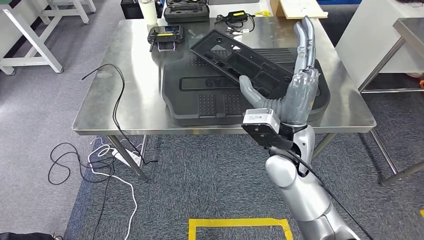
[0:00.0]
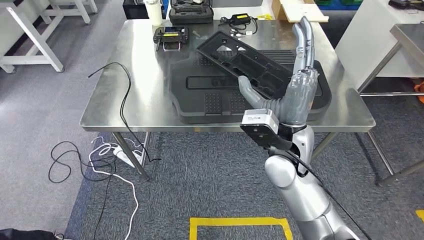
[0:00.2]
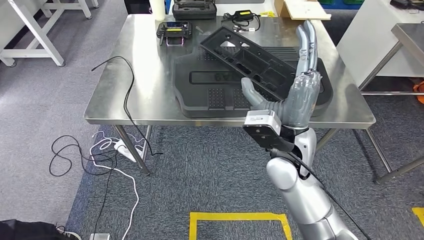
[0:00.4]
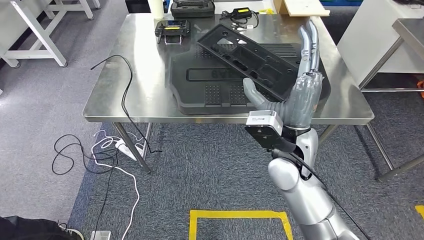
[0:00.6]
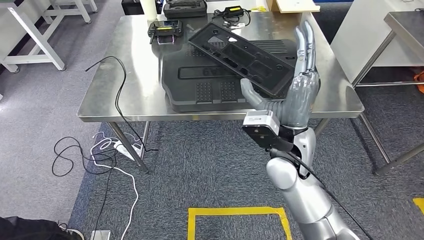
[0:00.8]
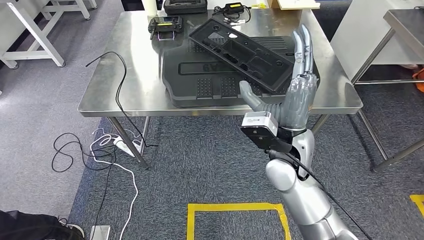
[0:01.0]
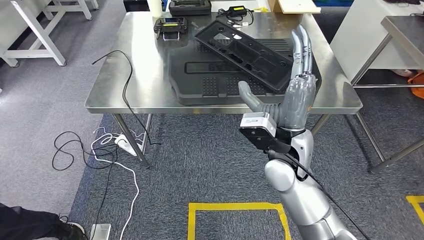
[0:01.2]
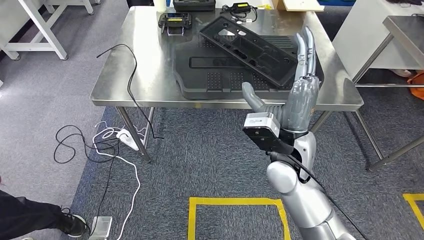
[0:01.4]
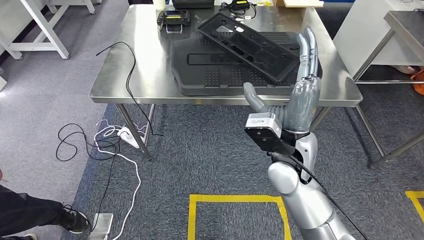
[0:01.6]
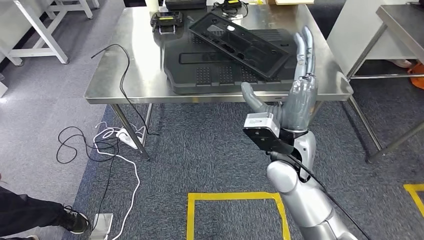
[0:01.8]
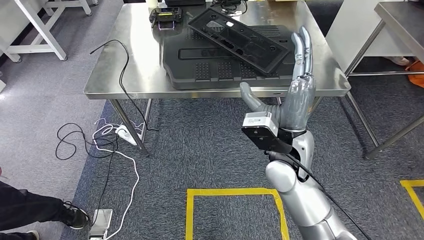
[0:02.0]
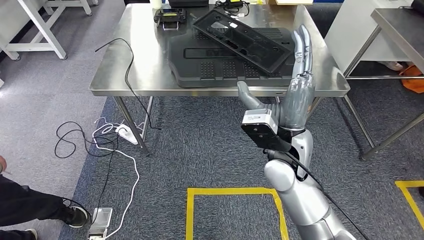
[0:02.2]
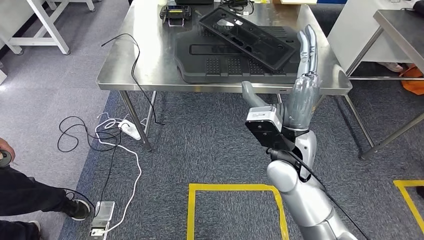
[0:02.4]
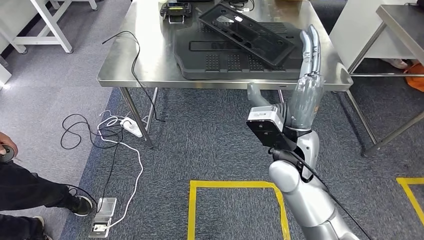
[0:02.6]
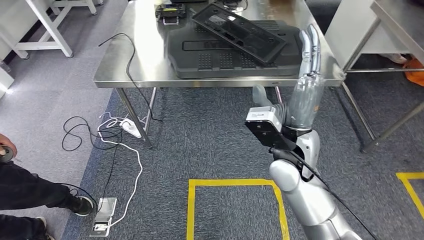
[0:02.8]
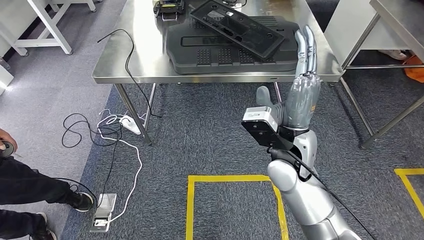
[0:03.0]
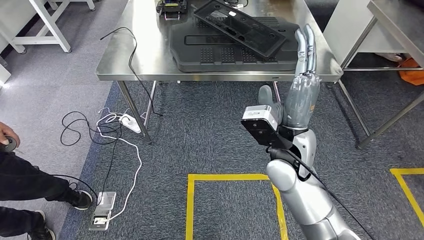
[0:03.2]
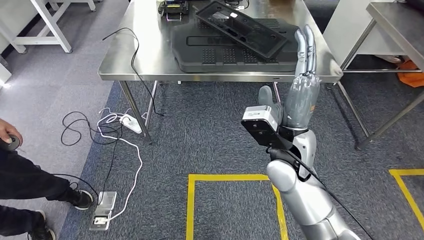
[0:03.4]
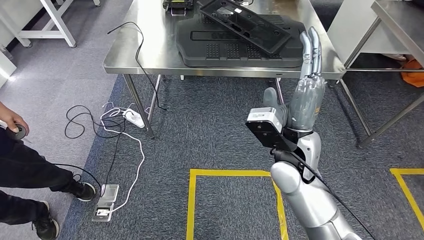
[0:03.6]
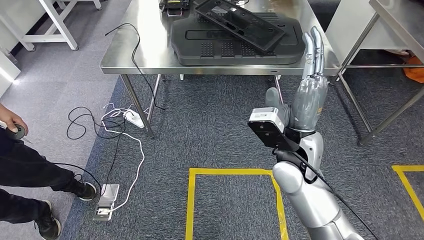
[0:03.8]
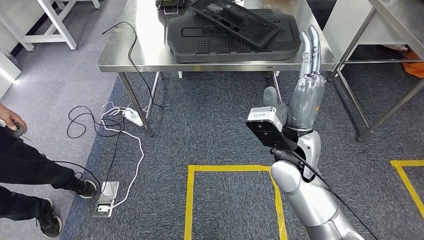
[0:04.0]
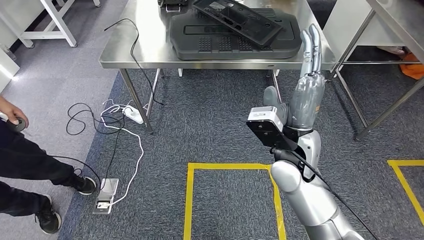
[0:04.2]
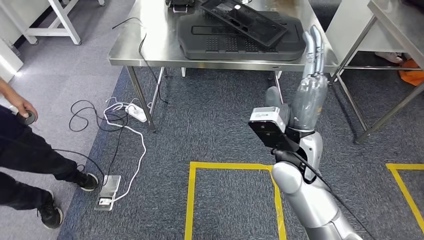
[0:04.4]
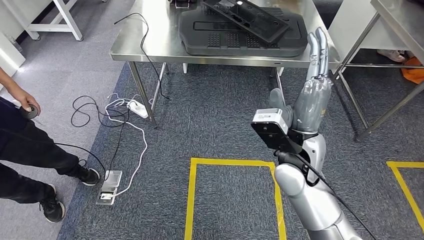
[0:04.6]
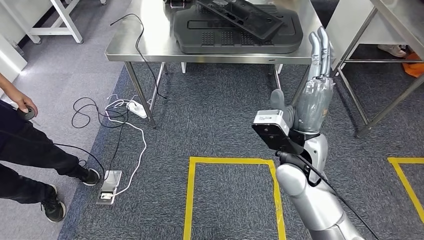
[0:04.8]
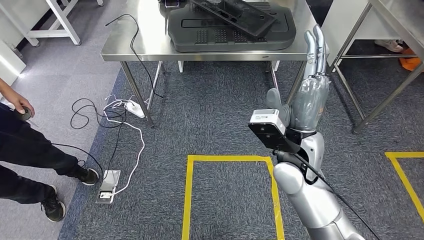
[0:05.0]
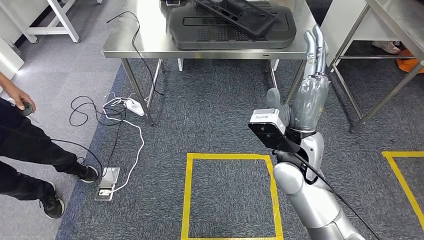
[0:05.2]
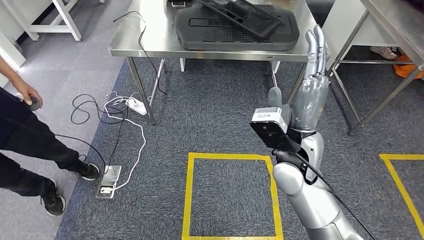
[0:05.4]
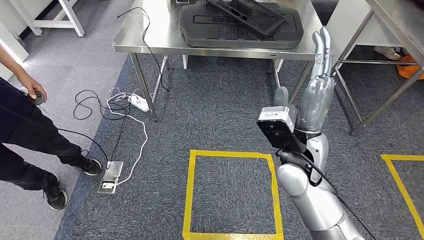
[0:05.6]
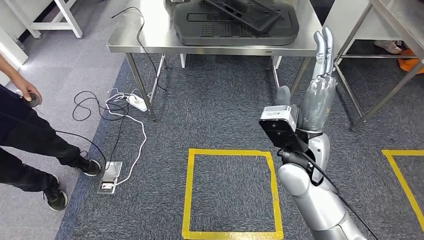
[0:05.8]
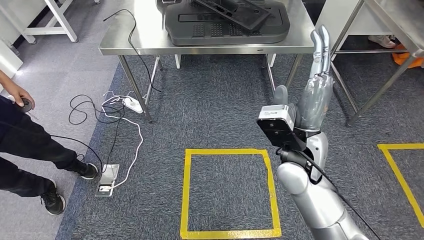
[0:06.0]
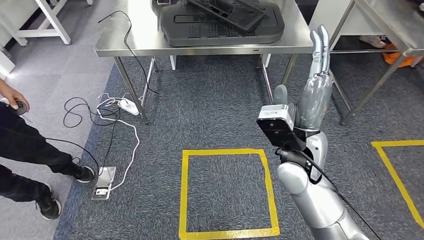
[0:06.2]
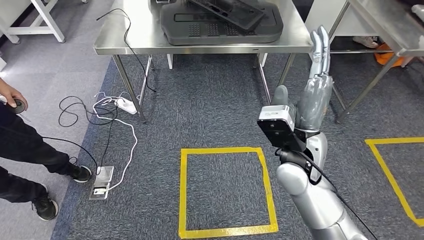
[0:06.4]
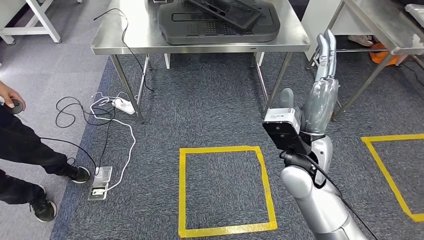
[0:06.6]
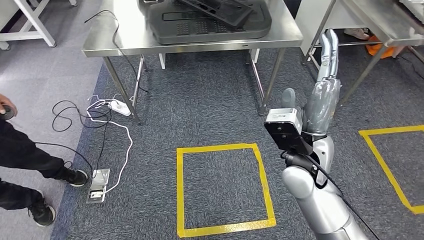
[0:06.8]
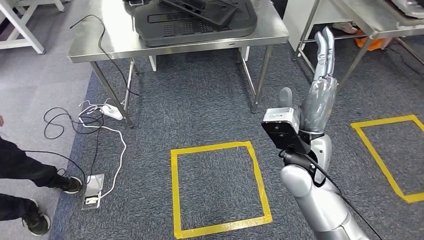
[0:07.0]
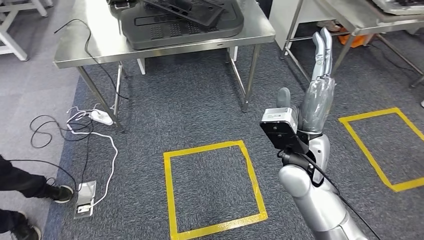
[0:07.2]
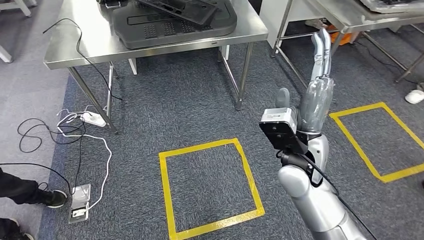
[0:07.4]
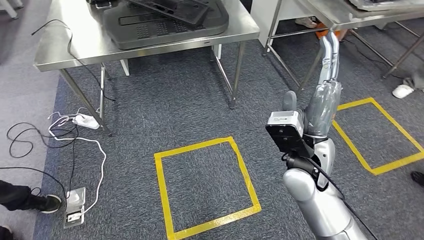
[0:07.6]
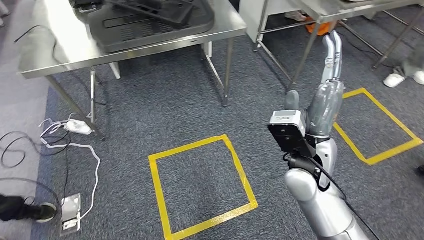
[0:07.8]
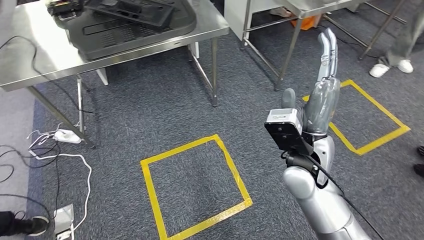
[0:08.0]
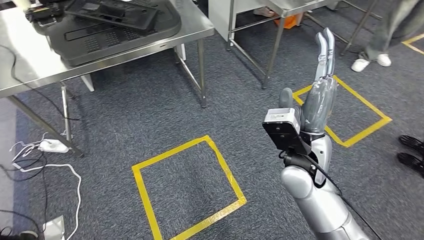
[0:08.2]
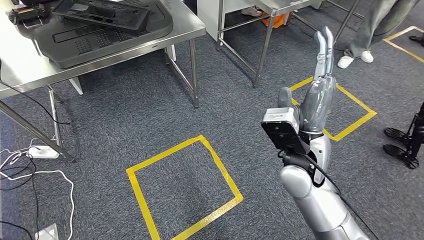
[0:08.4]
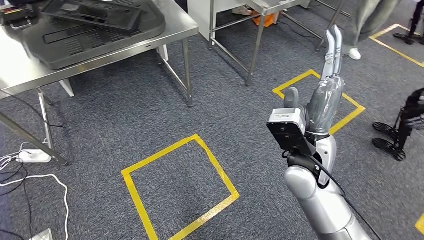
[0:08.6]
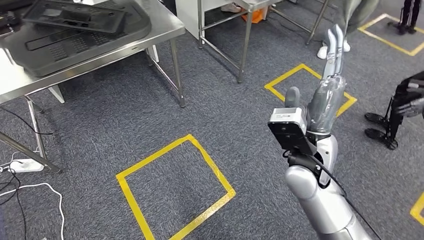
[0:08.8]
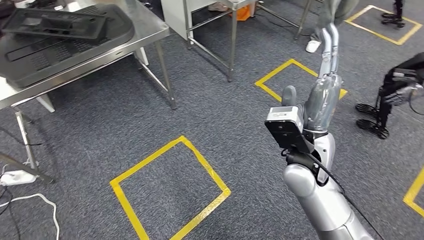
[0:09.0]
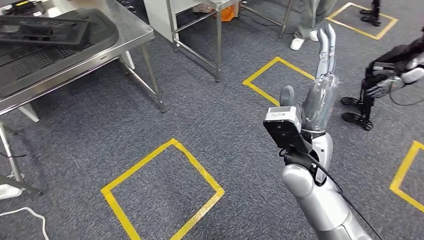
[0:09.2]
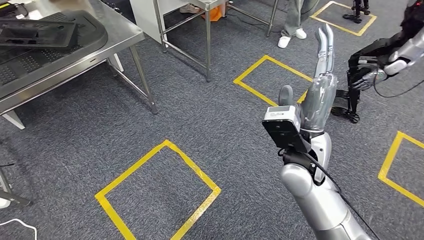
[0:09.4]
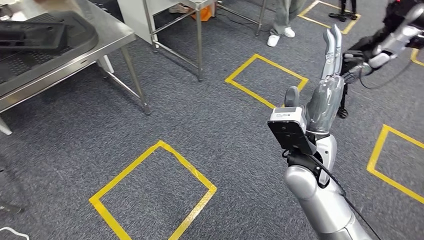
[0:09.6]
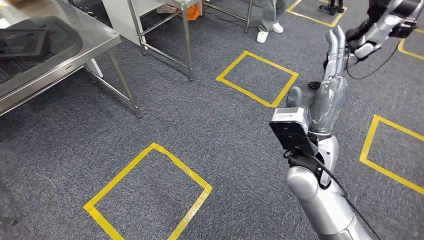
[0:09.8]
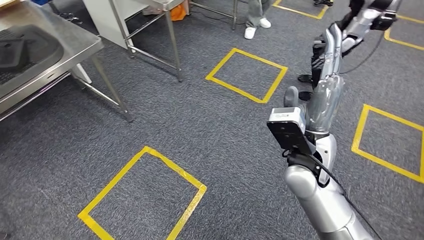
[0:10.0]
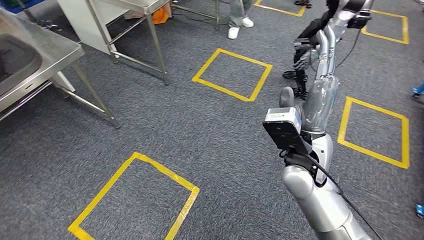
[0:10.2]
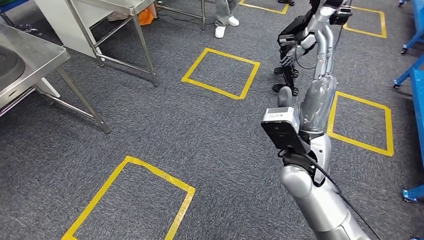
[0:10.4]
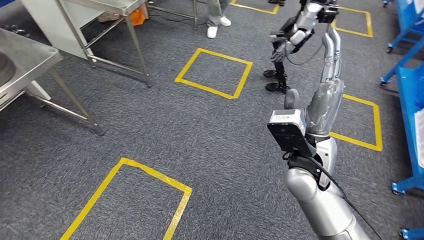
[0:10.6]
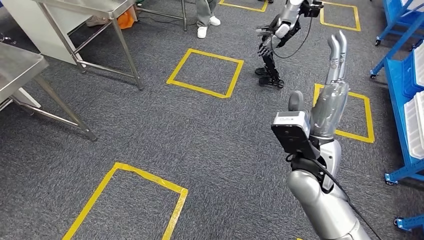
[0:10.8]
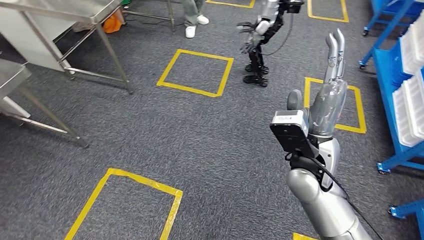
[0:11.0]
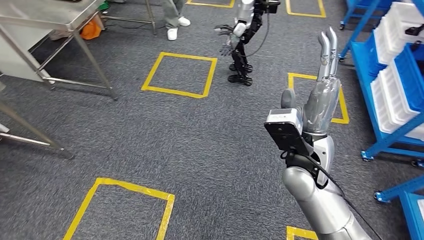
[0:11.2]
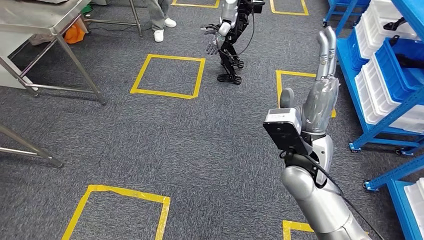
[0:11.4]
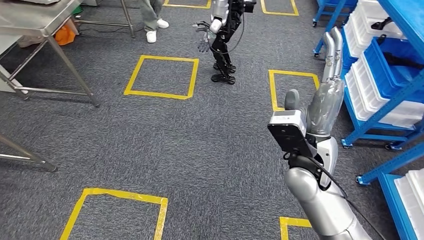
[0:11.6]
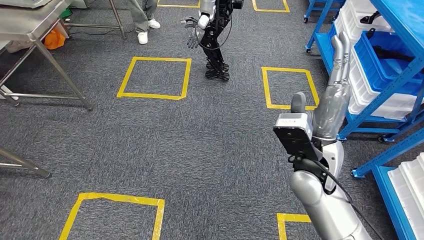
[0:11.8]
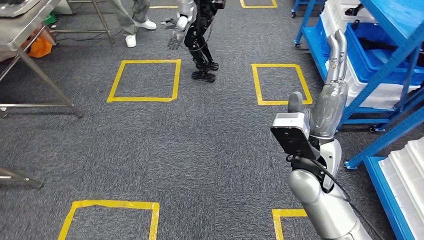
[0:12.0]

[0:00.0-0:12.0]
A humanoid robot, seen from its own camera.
Step, 0:00.0 to 0:03.2: Insert the large material into the corresponding slot on the workbench.

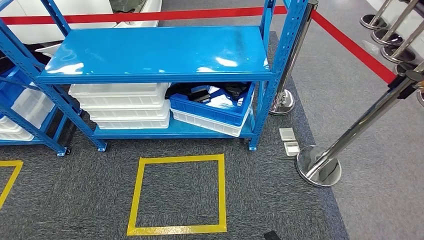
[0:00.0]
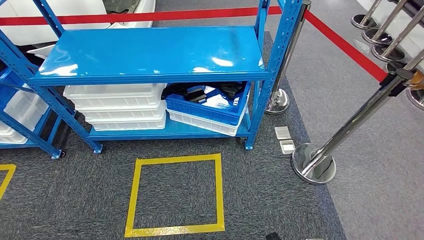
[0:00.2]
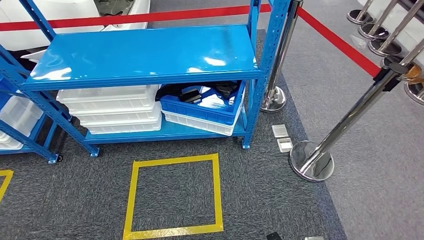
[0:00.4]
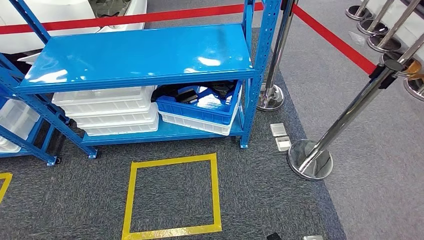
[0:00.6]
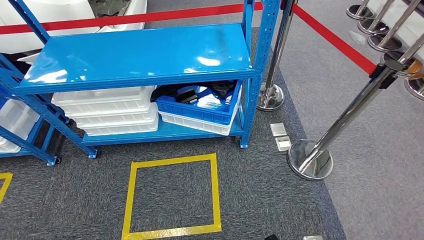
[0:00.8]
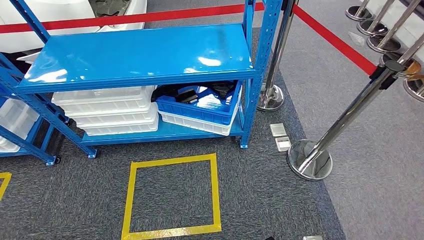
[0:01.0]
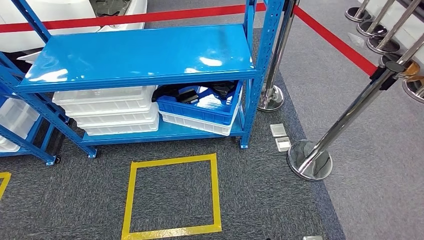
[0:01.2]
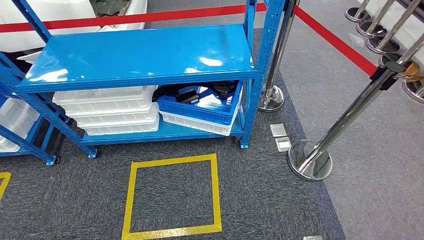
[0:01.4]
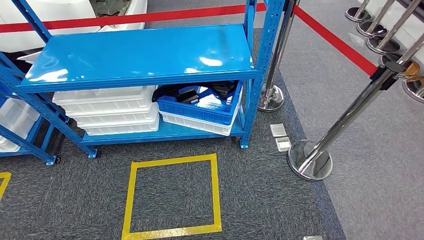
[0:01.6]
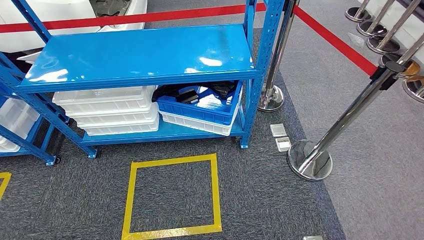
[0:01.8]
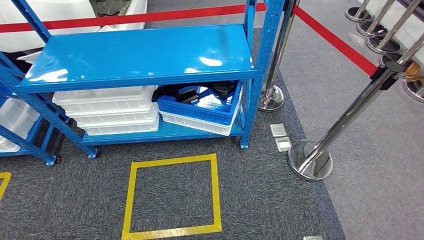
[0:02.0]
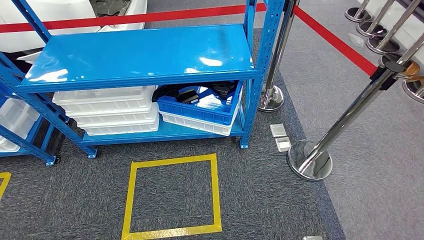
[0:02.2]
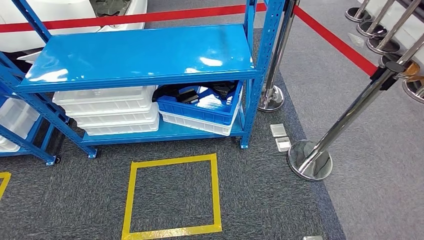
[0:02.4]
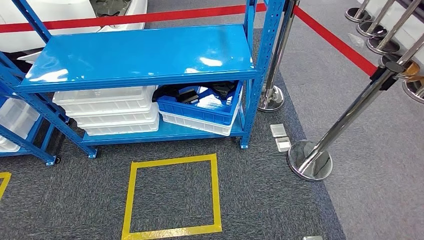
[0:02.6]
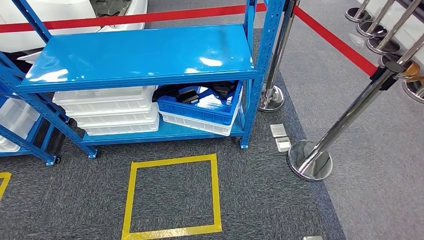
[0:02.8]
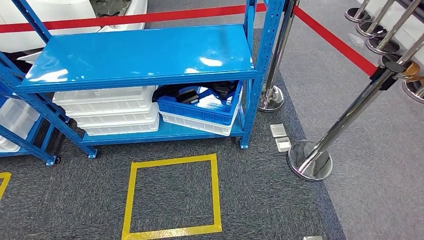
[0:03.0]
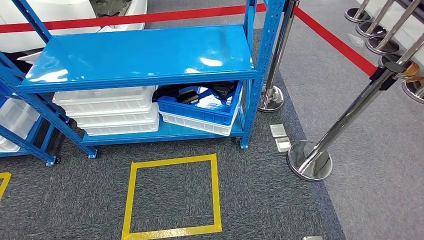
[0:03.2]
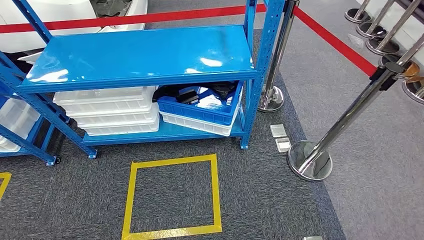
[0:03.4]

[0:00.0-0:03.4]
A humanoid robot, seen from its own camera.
Step, 0:00.0 to 0:03.2: Move to the initial position of the shelf.
0:01.6 to 0:03.4: The right hand is displaced backward by approximately 5 cm, while the left hand shifts some 10 cm to the left and backward.
